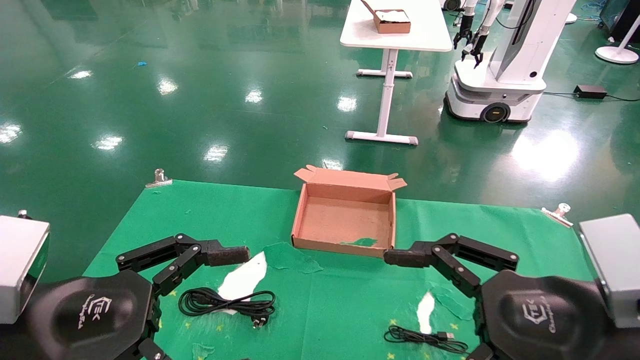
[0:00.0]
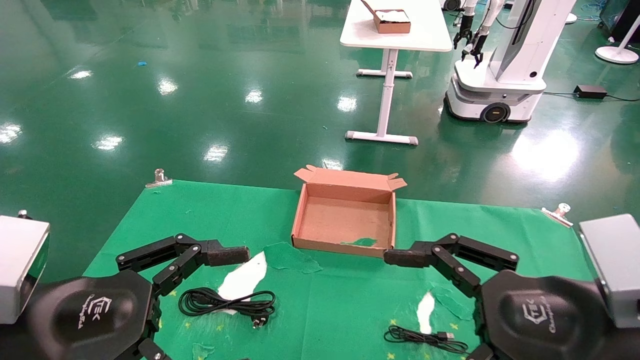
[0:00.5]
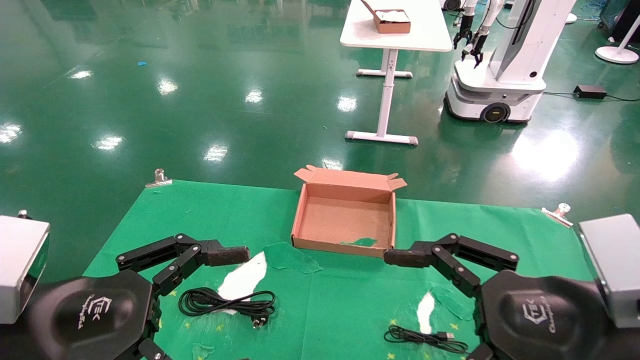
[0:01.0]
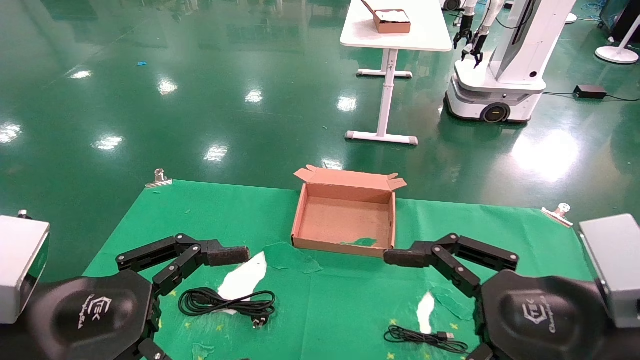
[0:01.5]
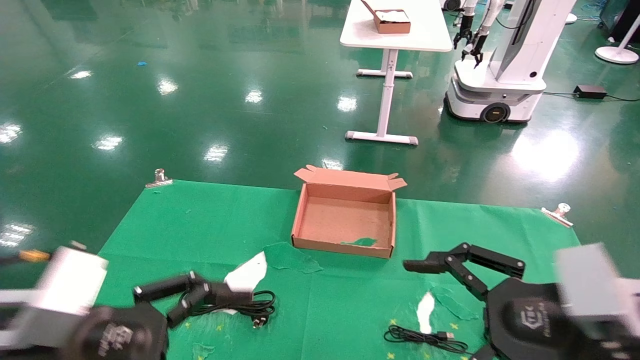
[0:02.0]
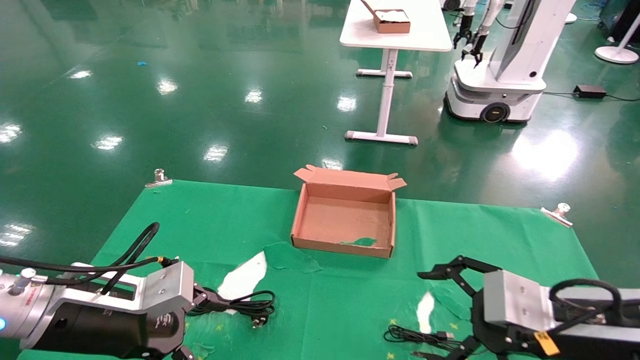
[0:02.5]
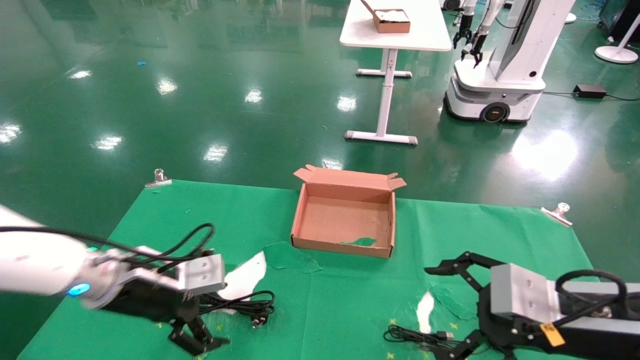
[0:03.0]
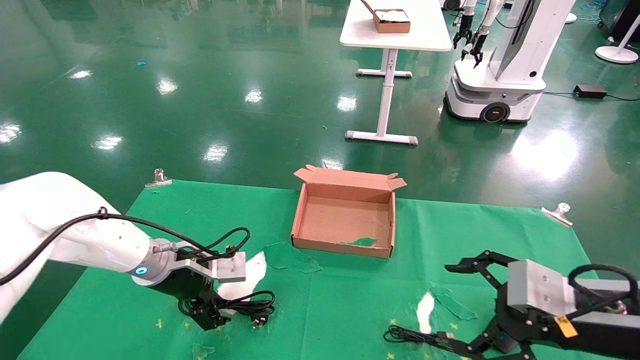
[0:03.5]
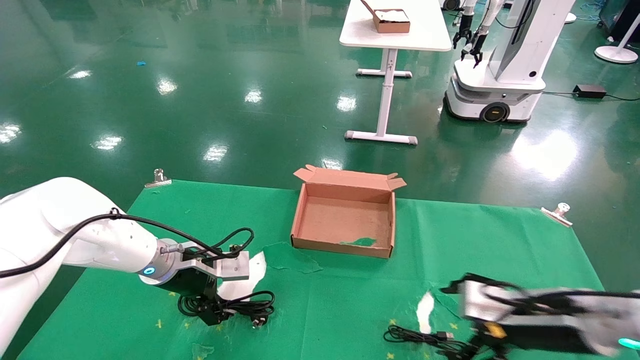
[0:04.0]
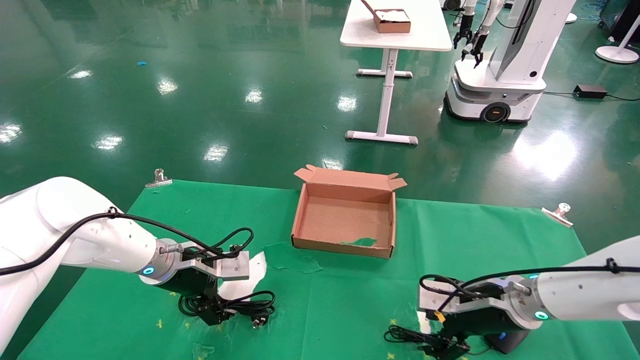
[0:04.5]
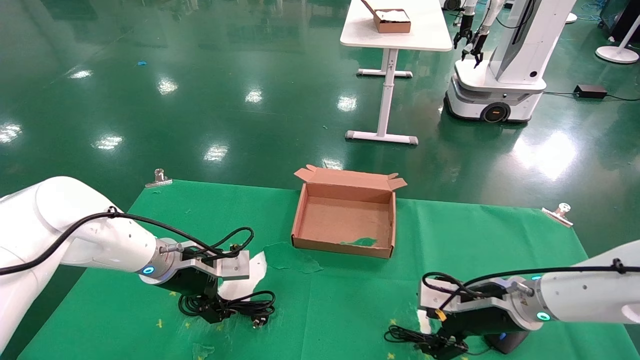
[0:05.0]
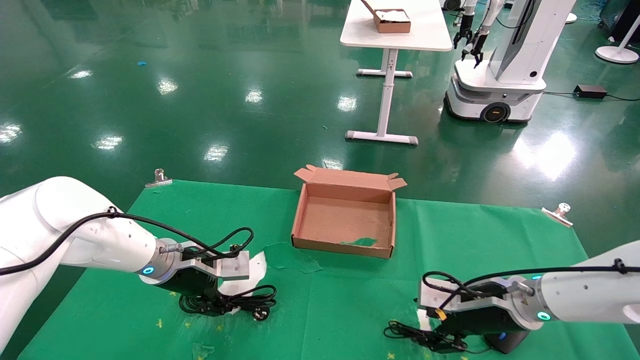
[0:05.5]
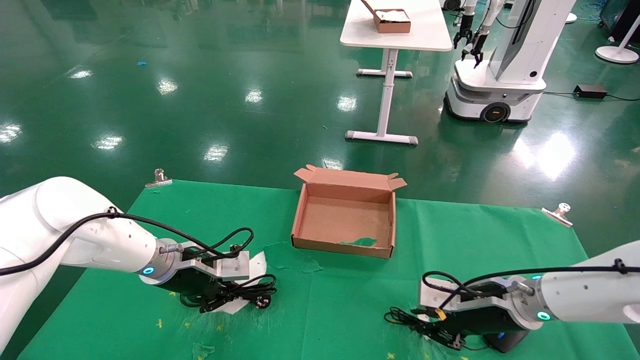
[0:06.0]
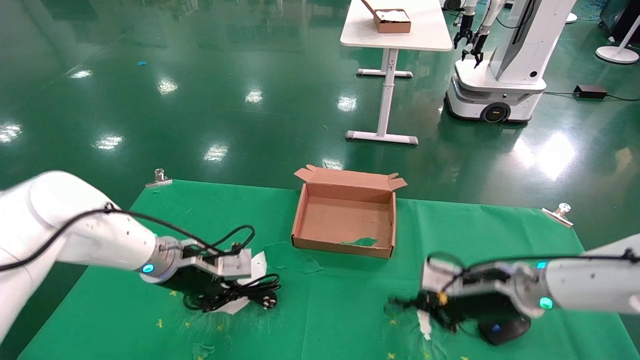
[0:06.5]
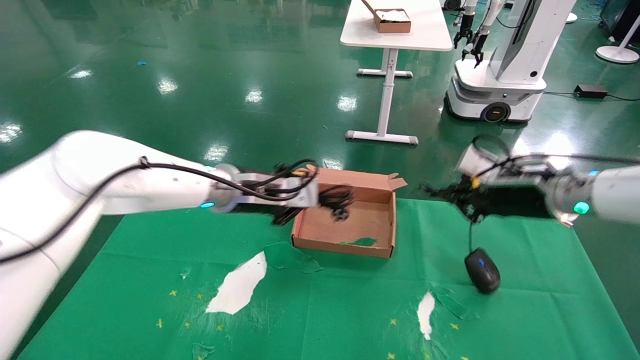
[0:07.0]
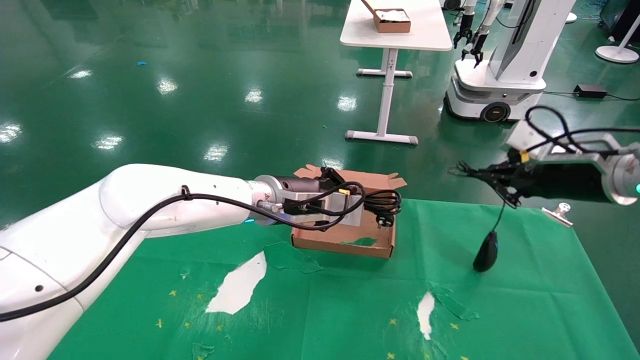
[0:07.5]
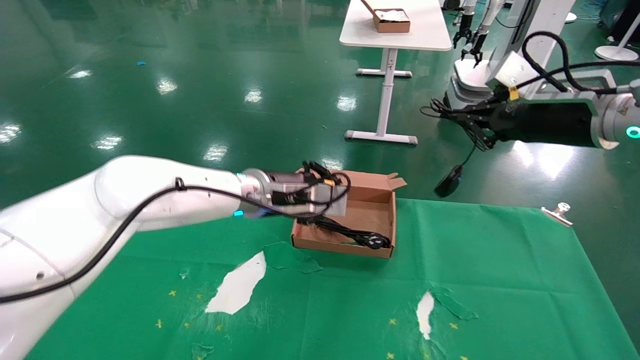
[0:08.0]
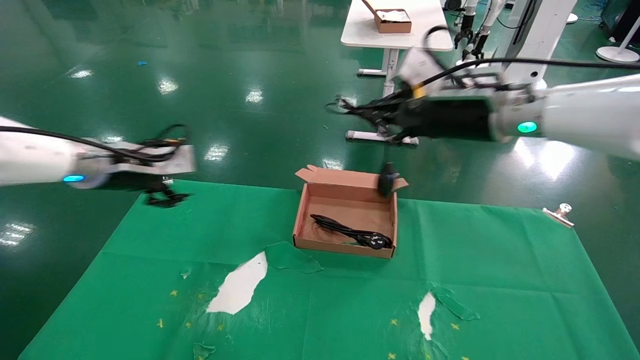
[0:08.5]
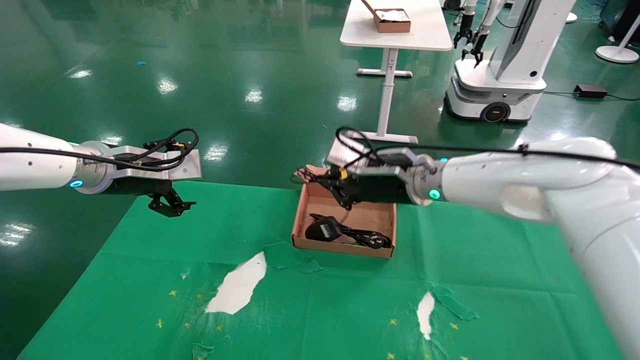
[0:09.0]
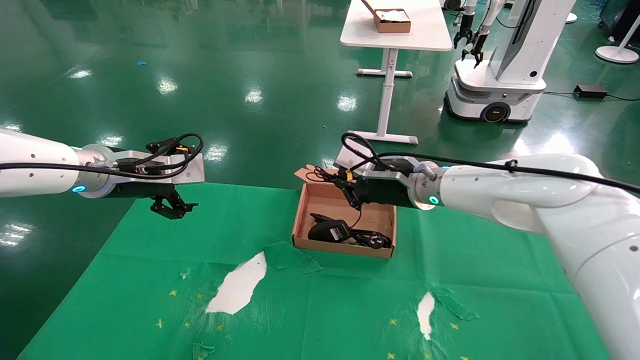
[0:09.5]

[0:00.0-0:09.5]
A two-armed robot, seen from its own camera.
Step, 0:02.5 to 0:06.5: Grab and lift both the mouse and power cord from the accessory packaging area at the same time.
0:00.0 to 0:02.0: The grippers stay close to where they were, moving slightly.
0:02.0 to 0:04.0: The right gripper moves forward and downward, some 15 cm, while the left gripper is displaced forward by some 25 cm.
0:04.0 to 0:05.5: The left gripper closes its fingers. Meanwhile the right gripper shifts some 5 cm forward.
0:05.5 to 0:07.5: The right gripper goes approximately 20 cm upward and to the right, and closes its fingers; the left gripper shifts approximately 20 cm to the right and upward, and closes its fingers.
0:07.5 to 0:09.5: The grippers both shift to the left by roughly 20 cm. The left gripper opens its fingers.

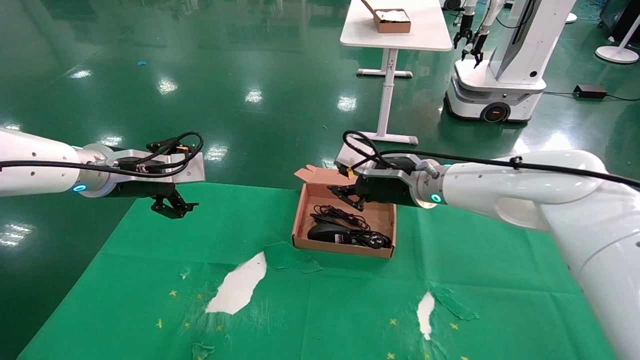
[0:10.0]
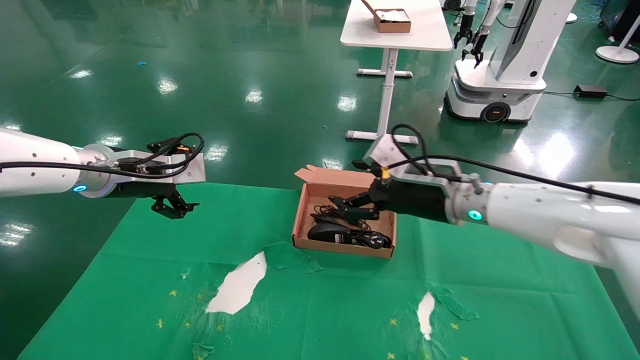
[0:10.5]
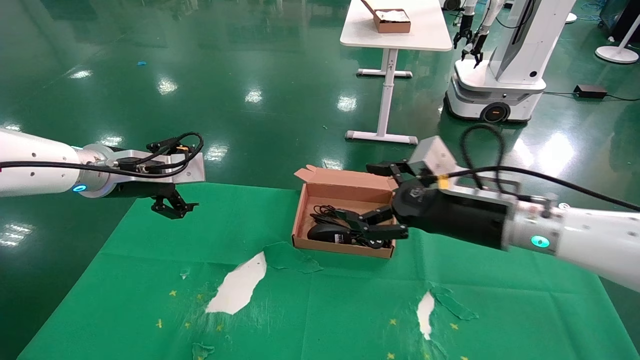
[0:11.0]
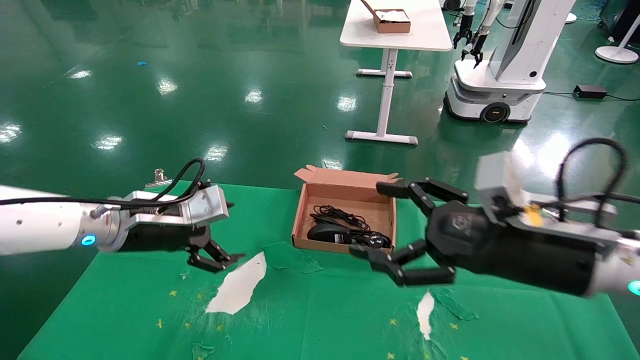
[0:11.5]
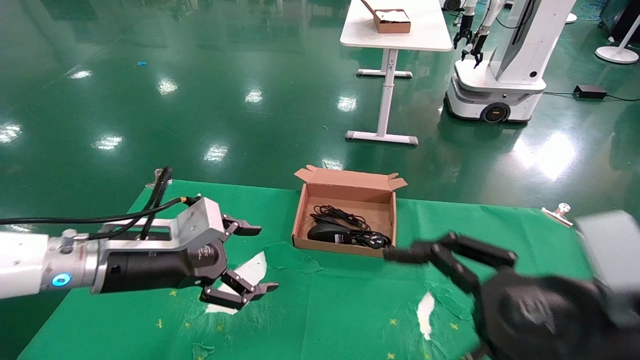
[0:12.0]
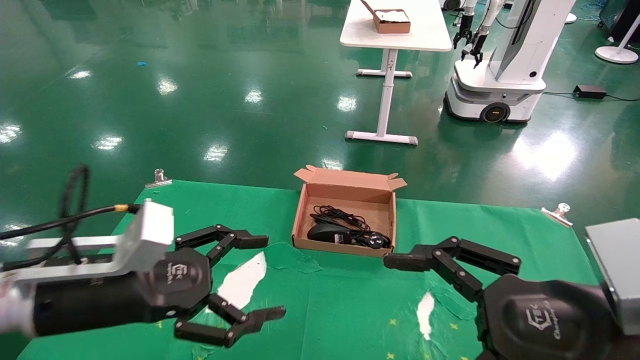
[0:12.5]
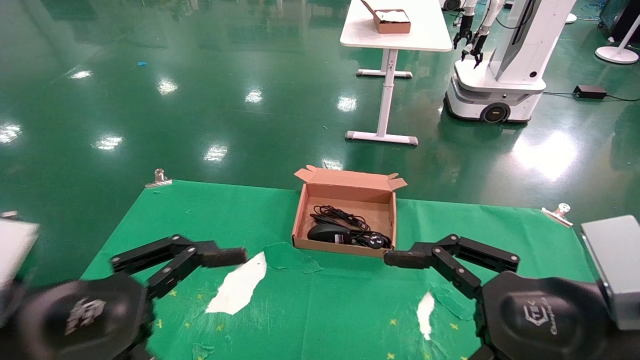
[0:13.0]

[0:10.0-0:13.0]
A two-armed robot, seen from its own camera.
0:10.0 to 0:11.5: The left gripper moves downward, roughly 5 cm. The right gripper heads backward and to the right, covering some 20 cm, and opens.
0:11.5 to 0:13.0: The left gripper travels backward by approximately 20 cm; the right gripper goes approximately 10 cm backward.

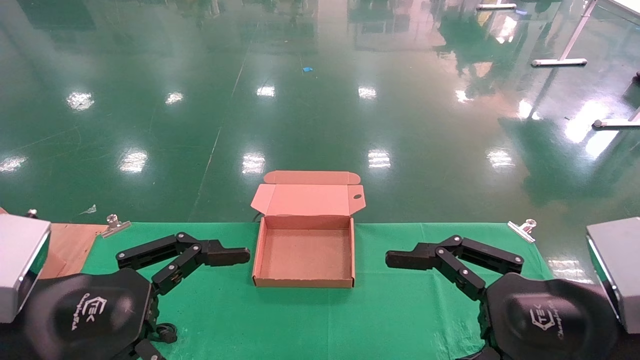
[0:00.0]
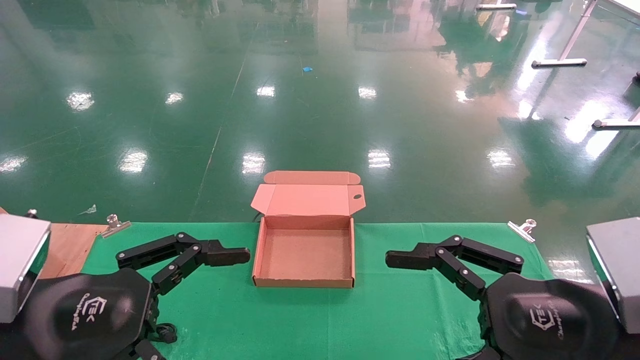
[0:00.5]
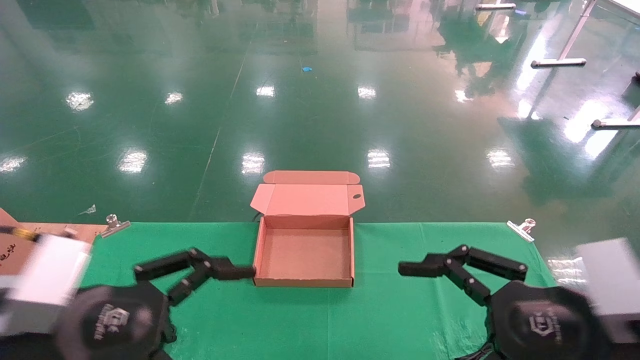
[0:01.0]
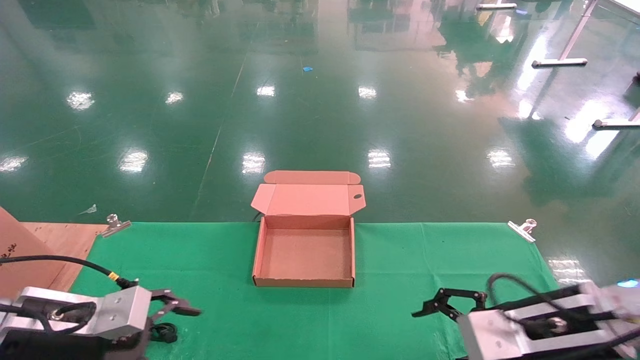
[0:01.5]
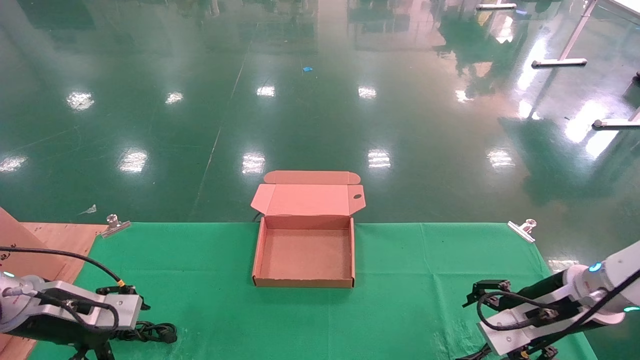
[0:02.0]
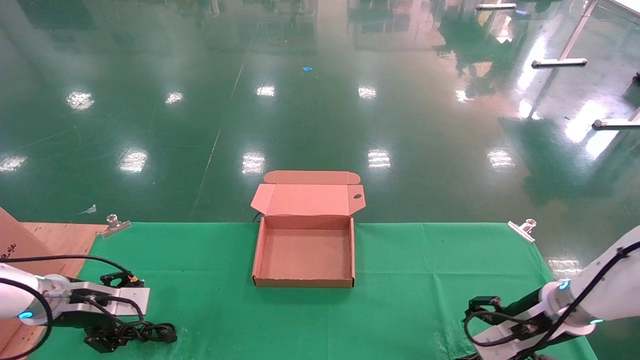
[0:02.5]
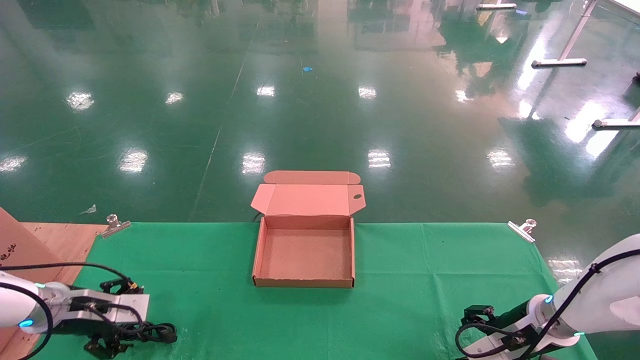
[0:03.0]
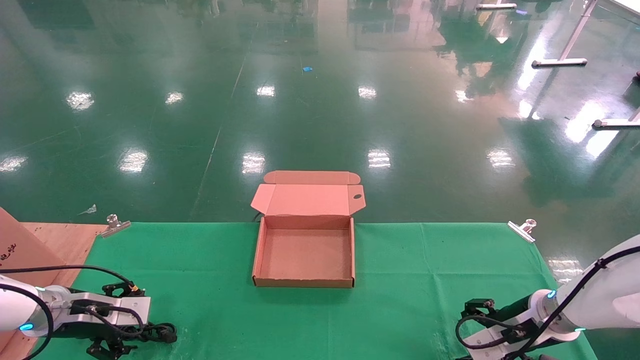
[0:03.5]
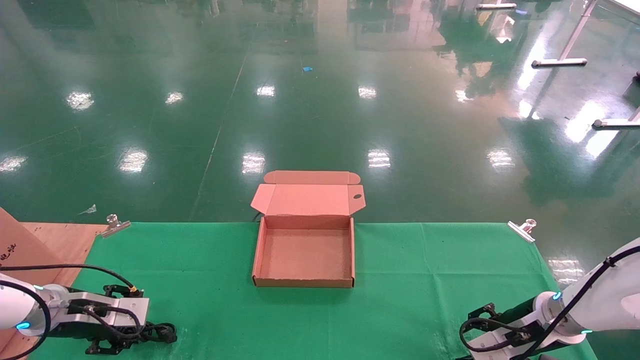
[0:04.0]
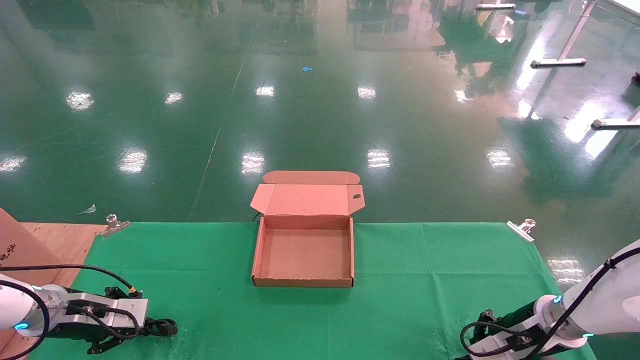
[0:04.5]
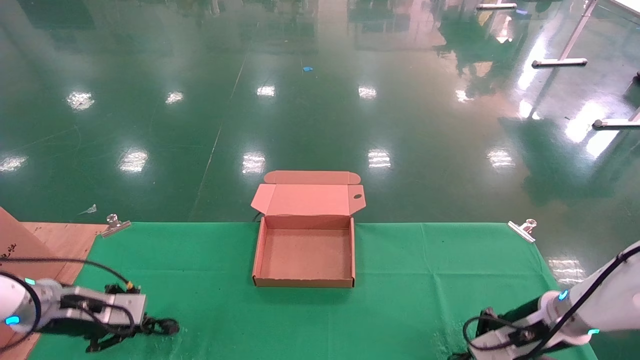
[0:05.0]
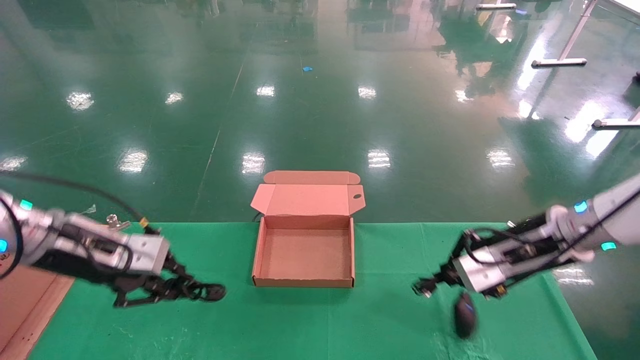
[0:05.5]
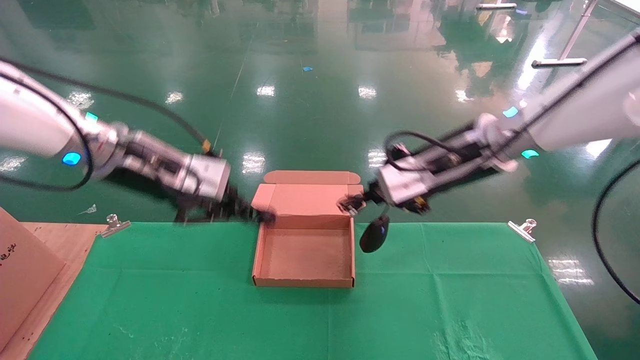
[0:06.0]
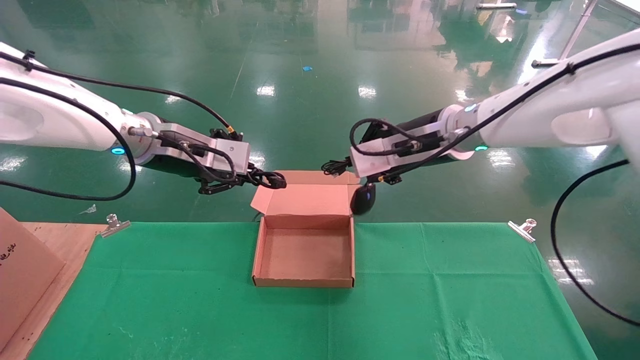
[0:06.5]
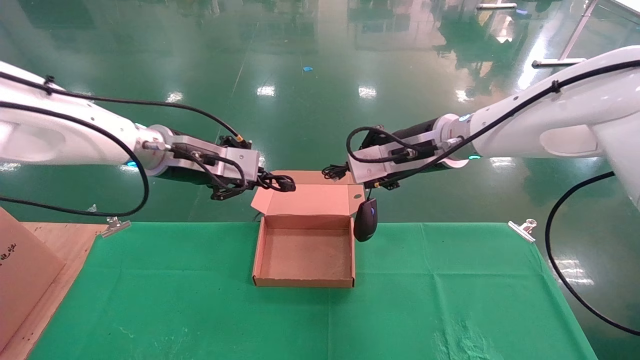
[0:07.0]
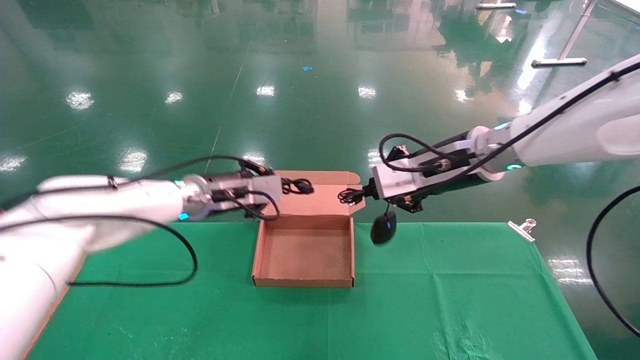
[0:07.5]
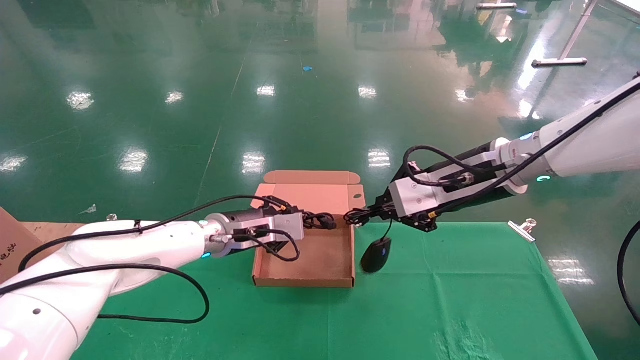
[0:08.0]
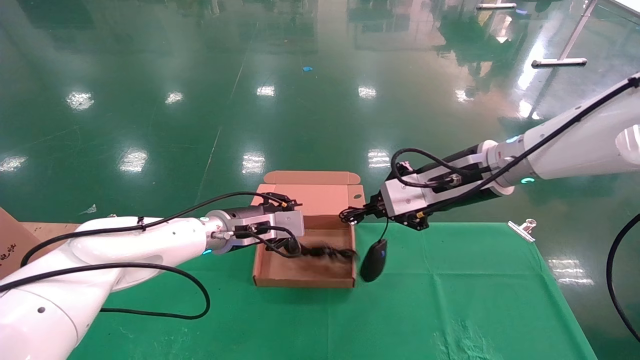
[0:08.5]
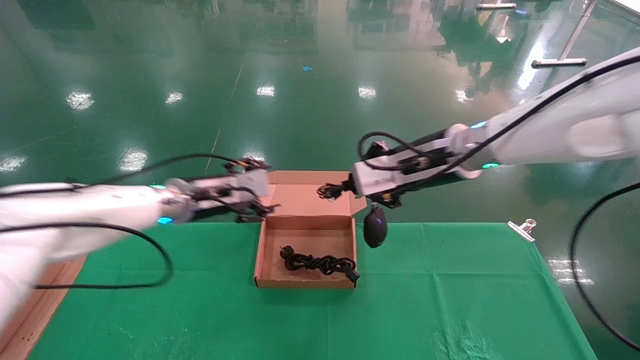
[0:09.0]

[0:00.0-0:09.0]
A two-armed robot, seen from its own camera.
Step, 0:01.5 to 0:04.5: Grab and lift both the mouse and power cord from the accessory packaging area at the same time.
0:00.0 to 0:02.0: The right gripper travels forward and downward by approximately 20 cm; the left gripper shifts about 25 cm forward, to the left and downward.
0:02.0 to 0:04.5: The left gripper moves some 5 cm, and closes its fingers. Meanwhile the right gripper is displaced downward by roughly 10 cm, and closes.
0:04.5 to 0:07.0: The left gripper travels upward and to the right by about 30 cm, while the right gripper moves upward and to the left, some 30 cm.
0:07.0 to 0:09.0: The left gripper is displaced downward by some 10 cm, and opens.
